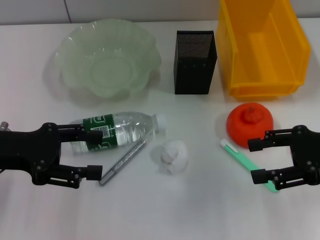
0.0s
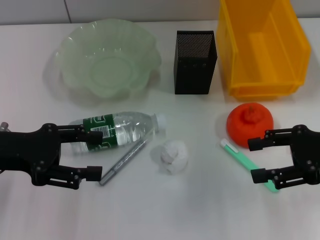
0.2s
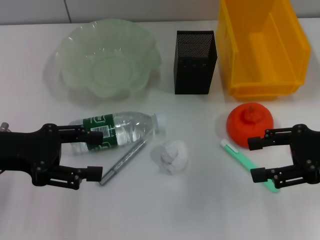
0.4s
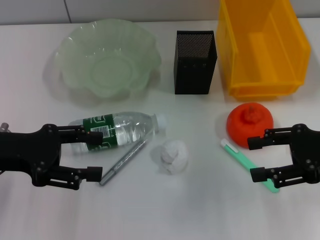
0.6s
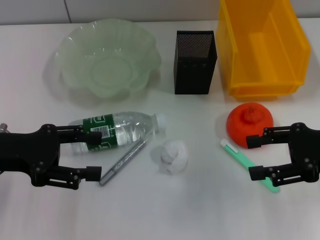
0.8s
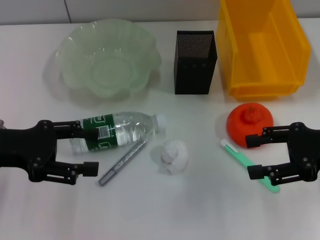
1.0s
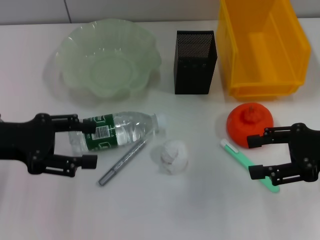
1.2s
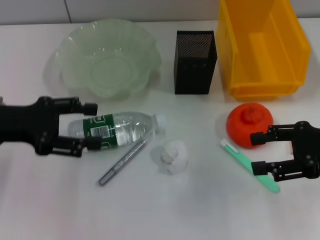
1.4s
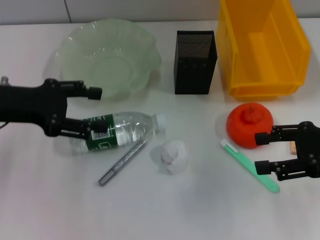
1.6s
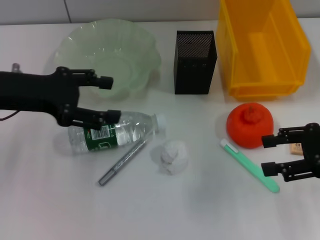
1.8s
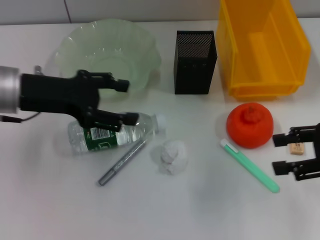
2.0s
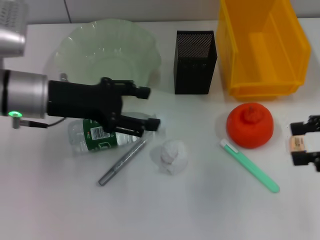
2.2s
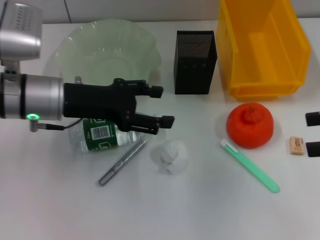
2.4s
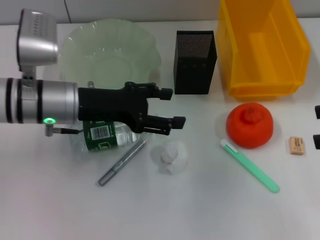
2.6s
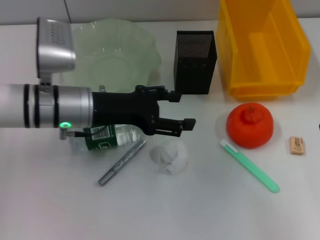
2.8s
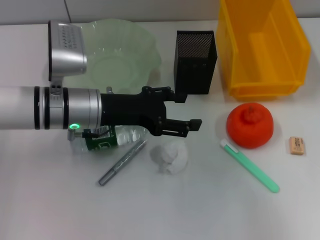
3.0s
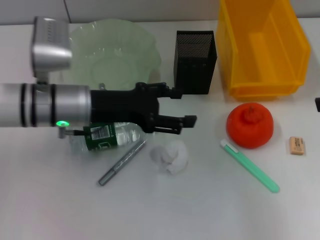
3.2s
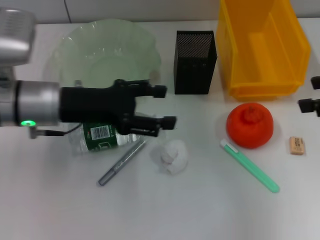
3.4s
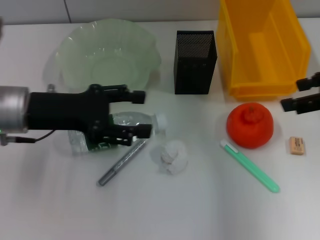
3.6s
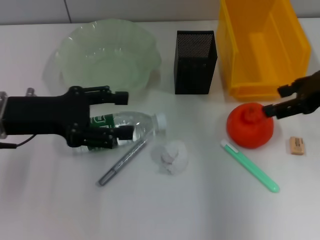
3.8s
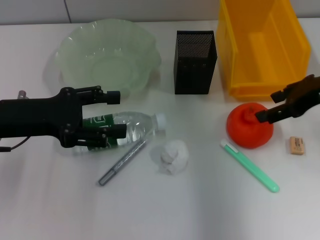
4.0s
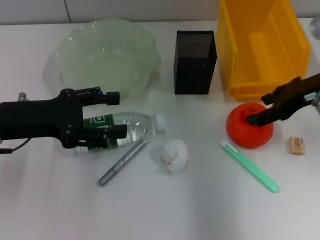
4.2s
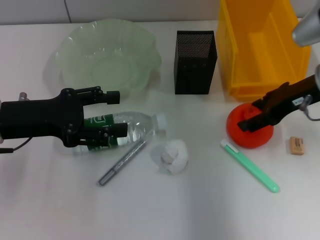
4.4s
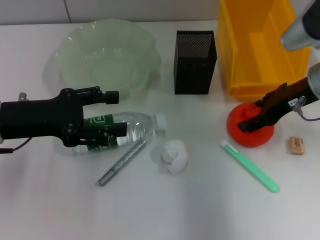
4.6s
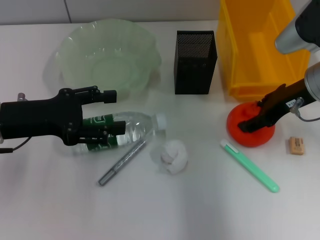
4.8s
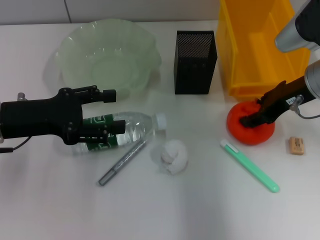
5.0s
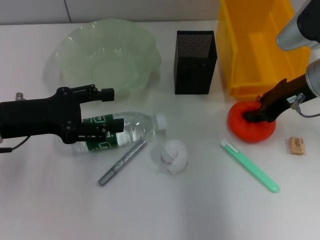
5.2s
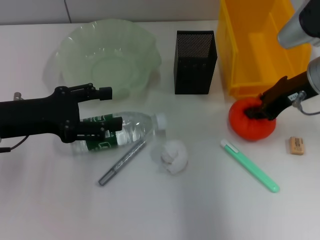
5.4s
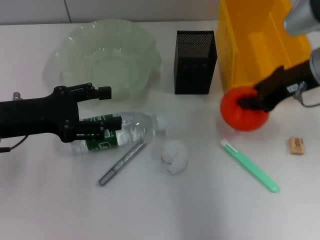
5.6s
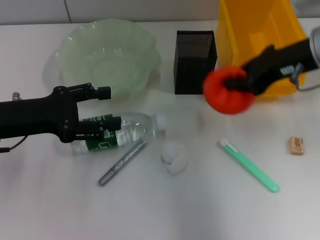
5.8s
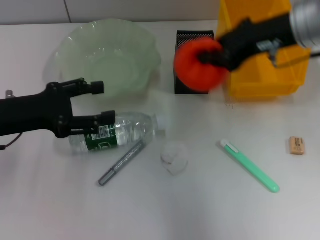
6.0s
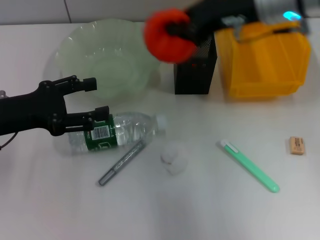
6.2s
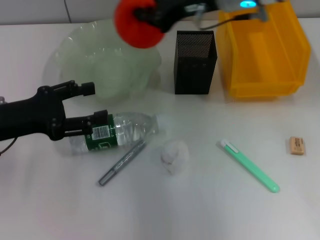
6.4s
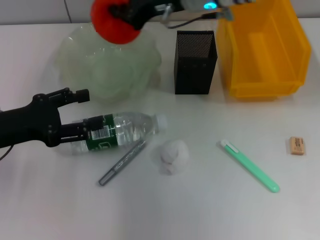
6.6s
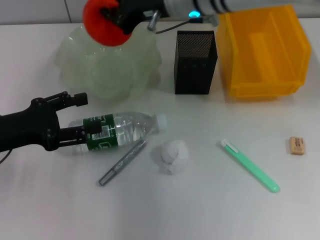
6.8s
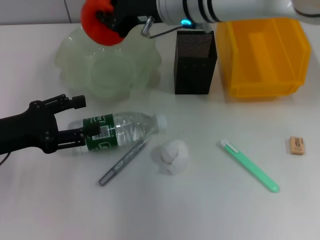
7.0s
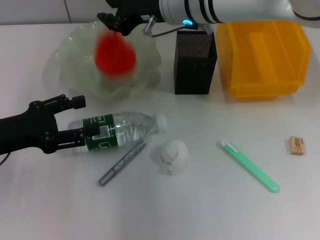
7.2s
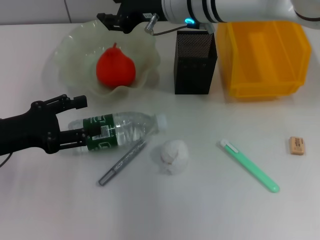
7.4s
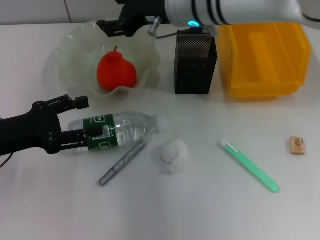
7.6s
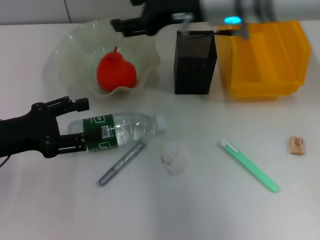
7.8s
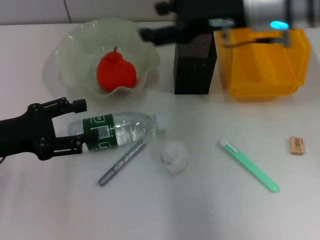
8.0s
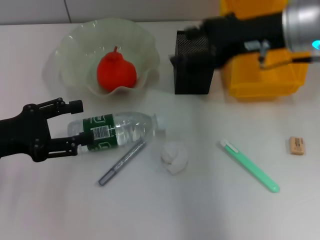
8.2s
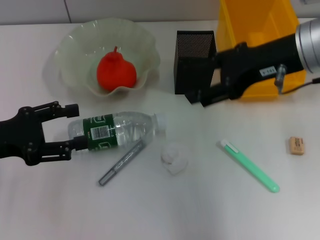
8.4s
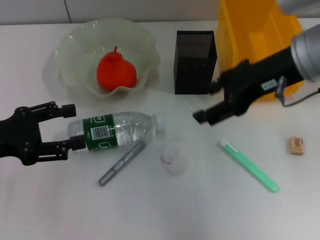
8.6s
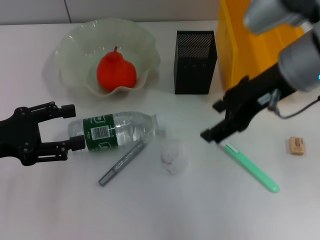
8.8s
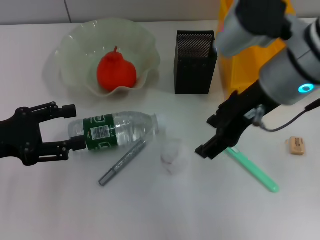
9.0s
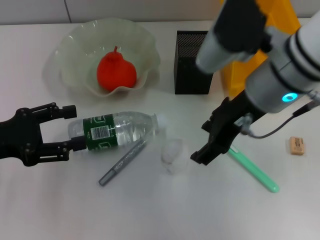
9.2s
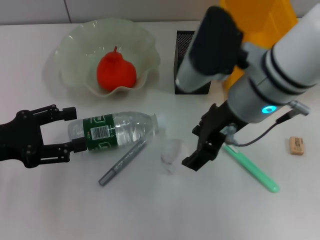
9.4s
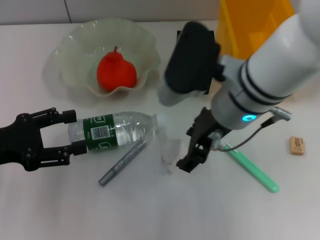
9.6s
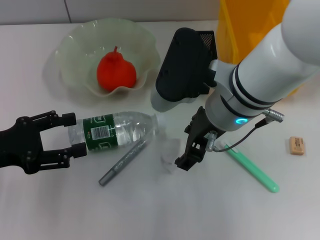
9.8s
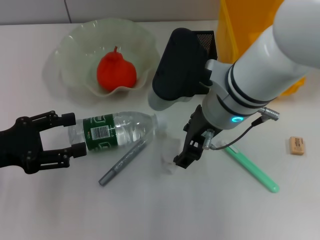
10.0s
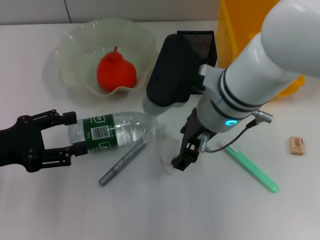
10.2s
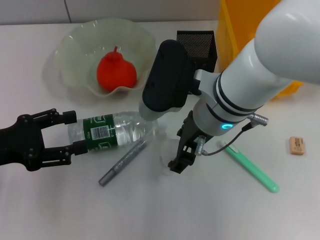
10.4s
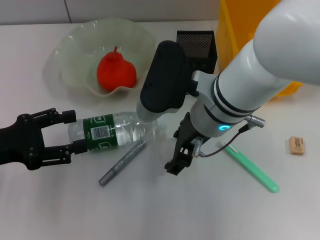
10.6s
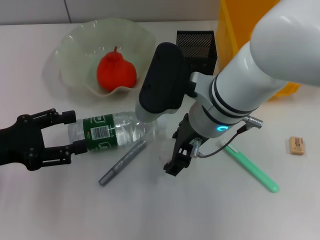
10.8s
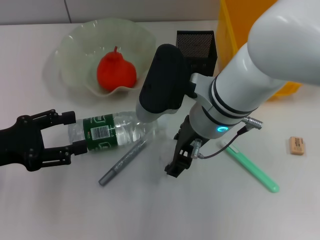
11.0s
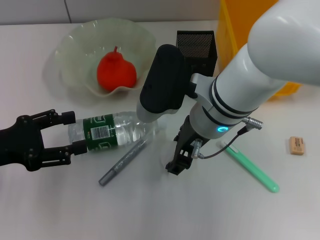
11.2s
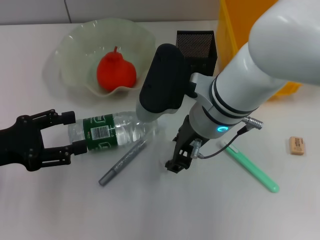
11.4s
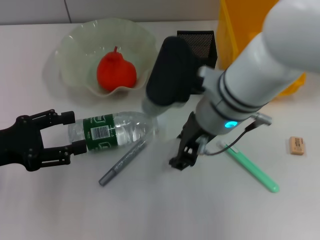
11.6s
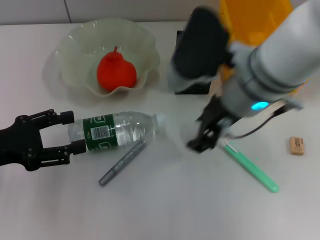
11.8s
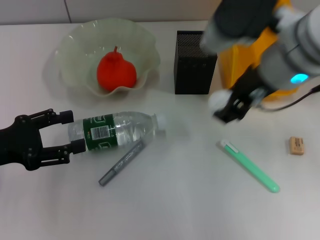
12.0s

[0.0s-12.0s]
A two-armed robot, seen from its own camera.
Step, 0.0s to 5.4s: Grab the orange with the right hand.
Step, 5.6s to 7.4s: Place the orange into the fruit bowl with the right hand.
Step, 7.6s to 11.4s: Grab the paper ball with the right hand.
0.0s to 1.6s: The left gripper shifts by some 5 cm.
1.6s to 3.0s: The left gripper heads to the right and downward, covering about 15 cm, while the right gripper moves upward, roughly 10 cm.
3.0s to 4.4s: The right gripper shifts some 15 cm to the left, forward and downward. Meanwhile the left gripper is displaced to the left by roughly 10 cm.
4.4s to 6.0s: The right gripper travels upward and to the left by roughly 10 cm, and closes its fingers.
6.0s to 7.6s: The right gripper is displaced to the left and forward by roughly 15 cm, and opens its fingers.
7.6s to 9.0s: The right gripper moves backward and to the right, roughly 15 cm.
9.0s to 10.4s: The right gripper shifts about 10 cm to the left and downward.
10.4s to 12.0s: The right gripper goes about 10 cm upward and to the right.

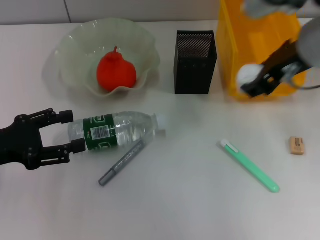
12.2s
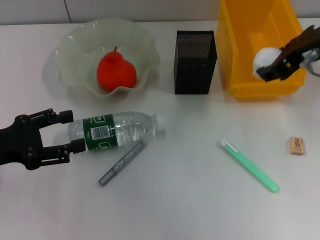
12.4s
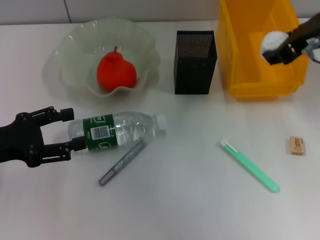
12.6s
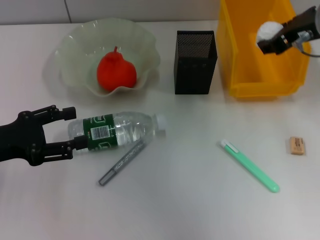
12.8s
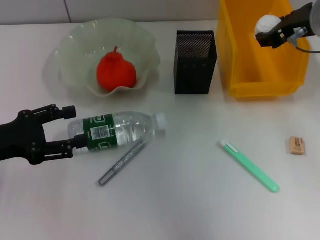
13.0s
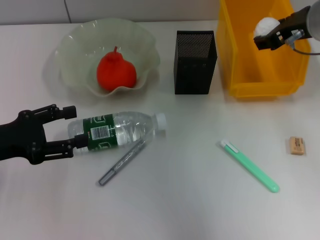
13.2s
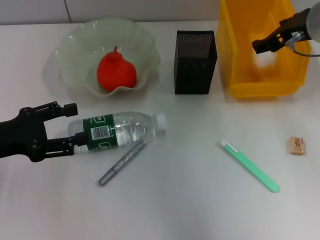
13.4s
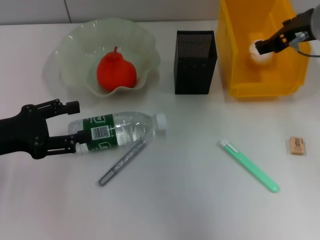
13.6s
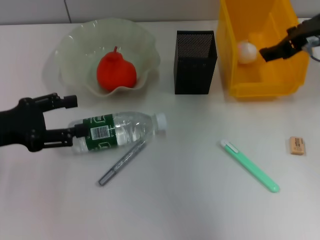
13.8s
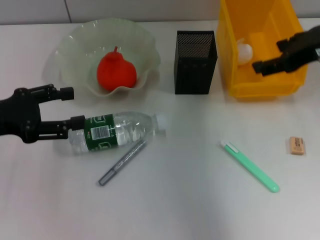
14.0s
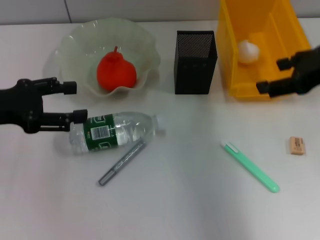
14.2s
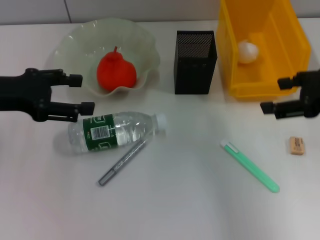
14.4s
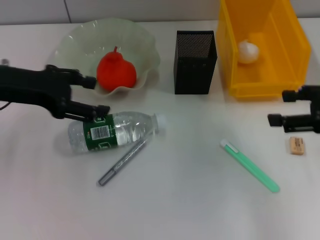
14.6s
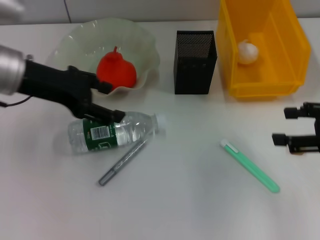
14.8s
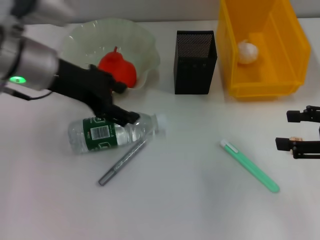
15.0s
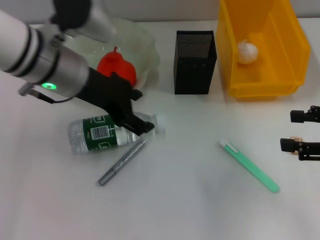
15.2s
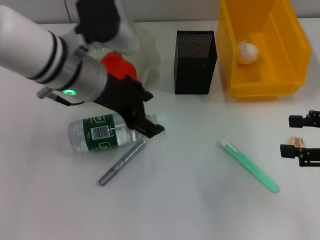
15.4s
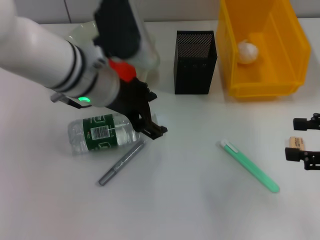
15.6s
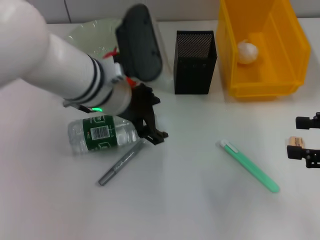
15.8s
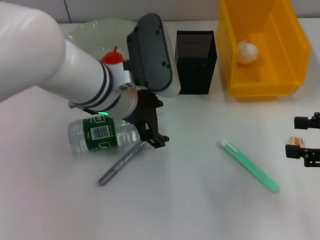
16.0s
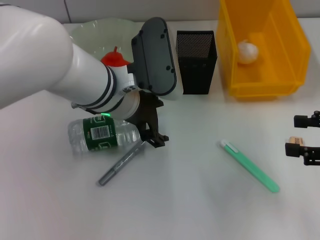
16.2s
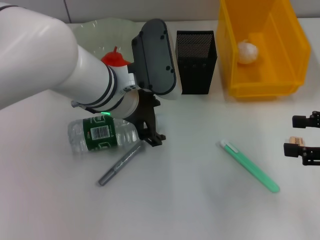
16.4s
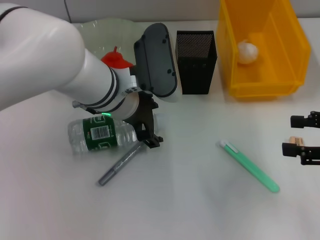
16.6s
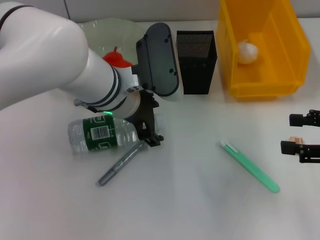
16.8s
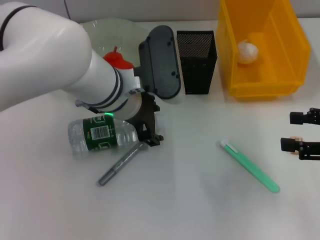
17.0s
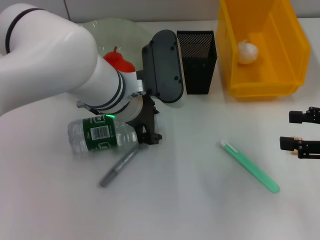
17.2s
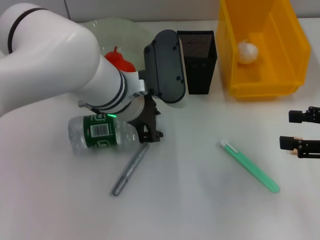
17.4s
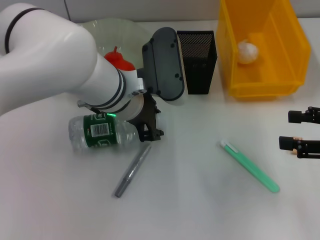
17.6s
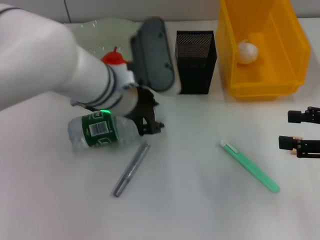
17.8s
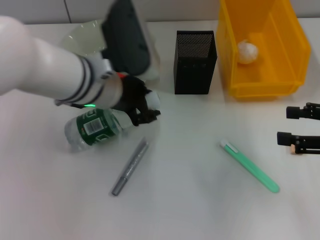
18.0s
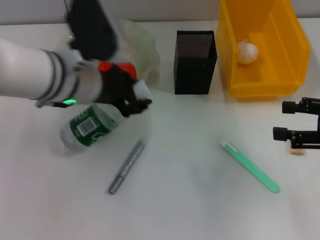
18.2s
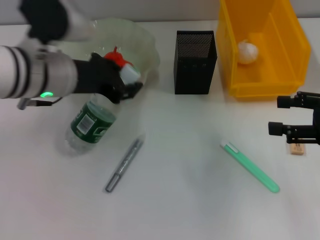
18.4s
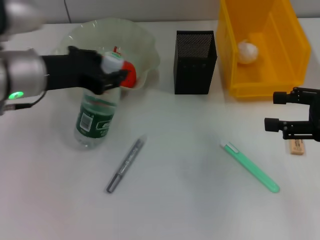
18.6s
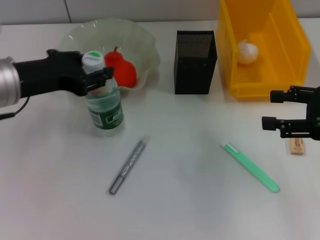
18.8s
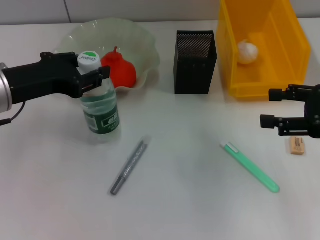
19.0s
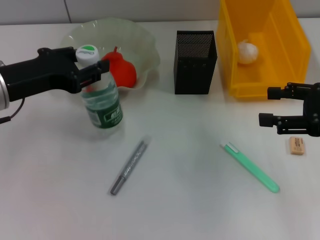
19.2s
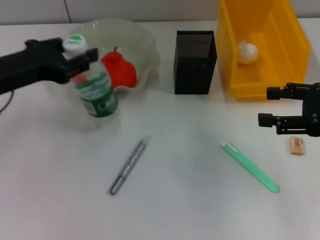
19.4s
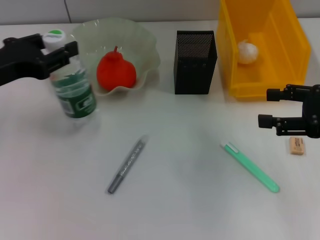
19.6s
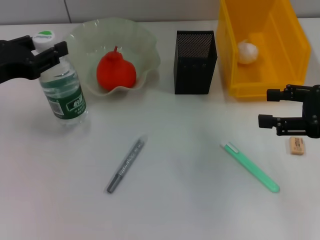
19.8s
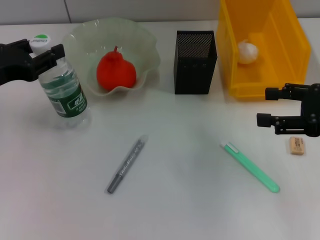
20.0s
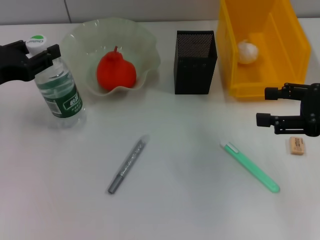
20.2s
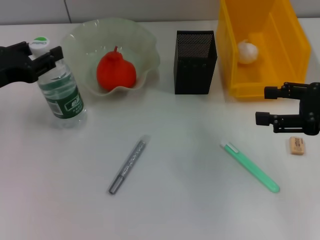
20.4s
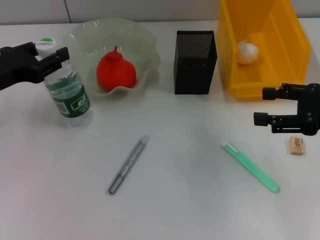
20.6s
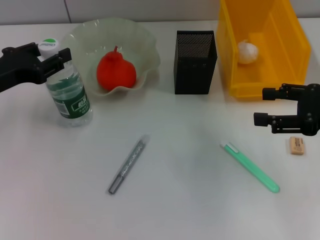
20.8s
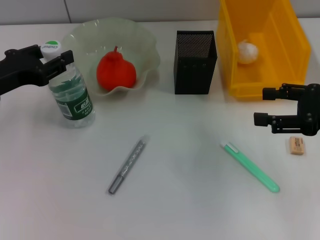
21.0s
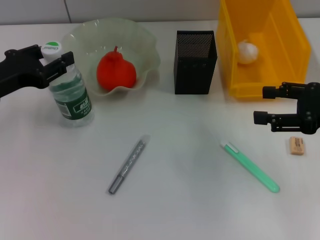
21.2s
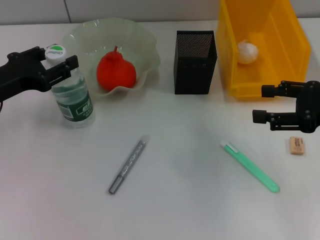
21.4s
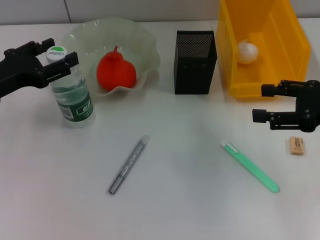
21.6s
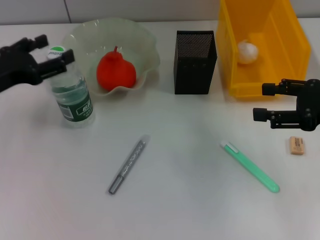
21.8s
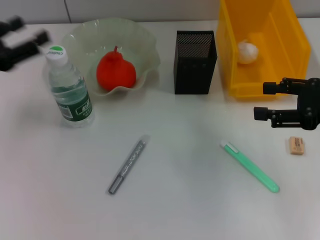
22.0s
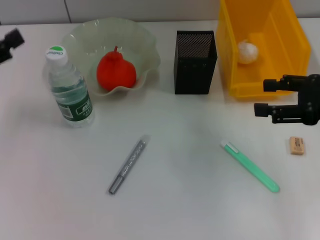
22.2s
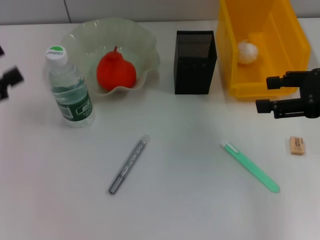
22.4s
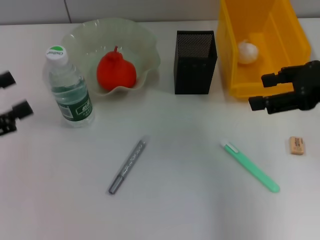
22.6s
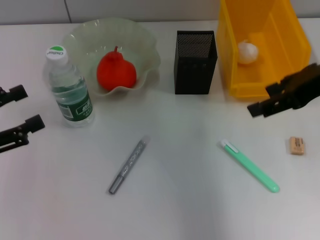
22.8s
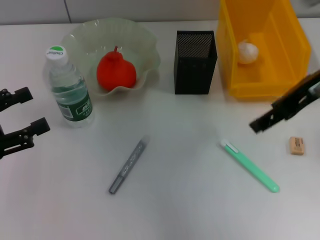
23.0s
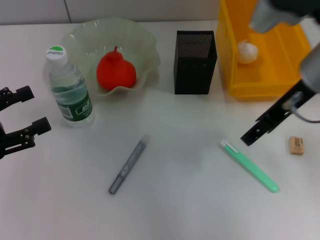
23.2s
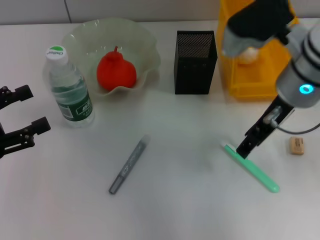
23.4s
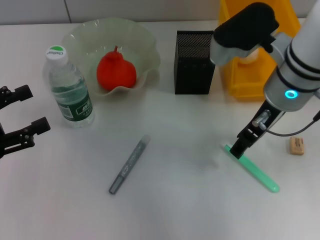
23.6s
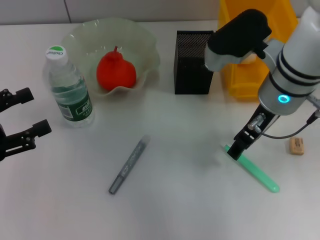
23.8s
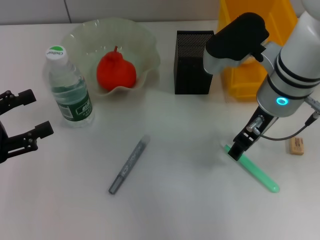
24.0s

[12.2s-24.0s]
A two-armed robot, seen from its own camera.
Step, 12.2s to 13.8s: Place the paper ball into the trash can with the right hand.
Step, 14.0s to 17.8s: Grab the water bottle with the left hand.
Step, 18.0s to 21.8s: Place the water bottle on the table with the left hand.
12.2s to 13.6s: The right gripper moves forward, roughly 5 cm, and opens up.
13.6s to 15.2s: The right gripper goes some 20 cm backward, to the right and downward. The left gripper travels to the right, forward and upward by some 20 cm.
15.2s to 16.6s: The left gripper shifts some 10 cm to the right and downward.
16.6s to 18.2s: The left gripper is displaced to the left by roughly 5 cm, and closes up.
18.2s to 19.6s: The left gripper is displaced to the left by approximately 15 cm.
19.6s to 21.0s: There are only small adjustments of the grippers.
21.0s to 22.6s: The right gripper heads upward, covering about 5 cm. The left gripper heads backward and to the left, covering some 10 cm, and opens up.
22.6s to 24.0s: The right gripper travels to the left by about 15 cm.
